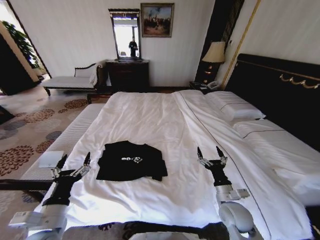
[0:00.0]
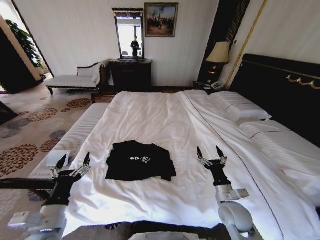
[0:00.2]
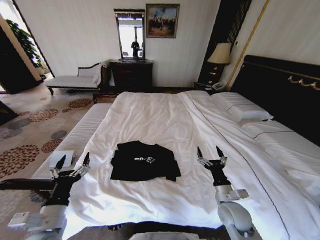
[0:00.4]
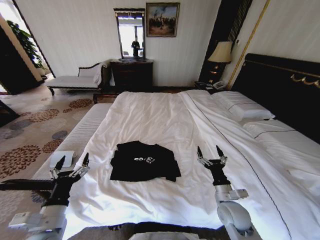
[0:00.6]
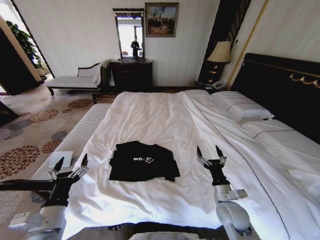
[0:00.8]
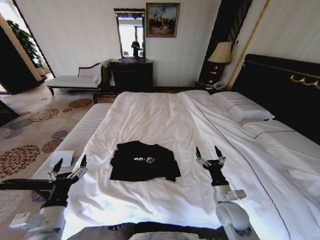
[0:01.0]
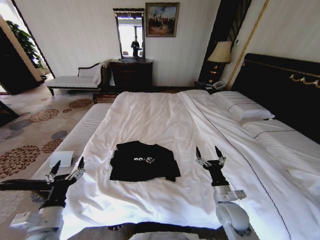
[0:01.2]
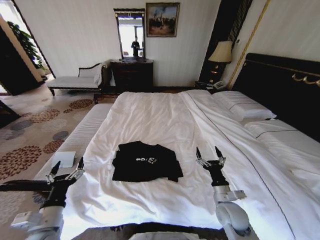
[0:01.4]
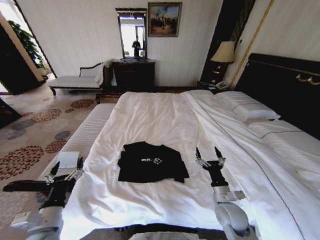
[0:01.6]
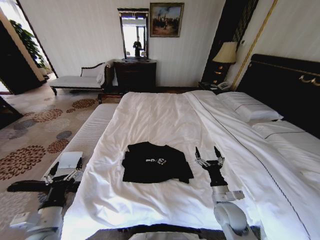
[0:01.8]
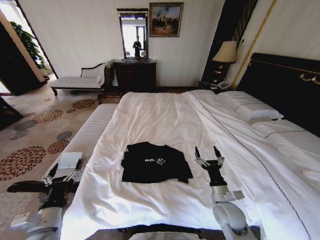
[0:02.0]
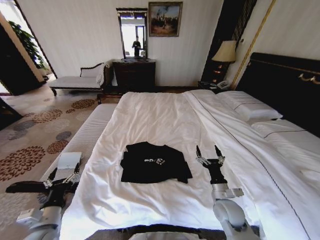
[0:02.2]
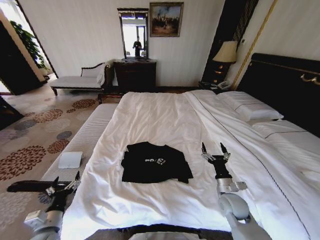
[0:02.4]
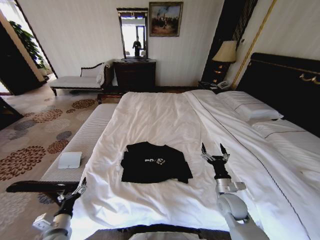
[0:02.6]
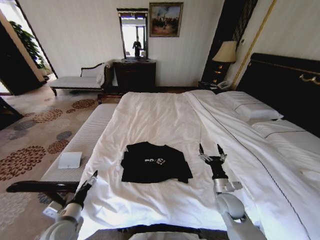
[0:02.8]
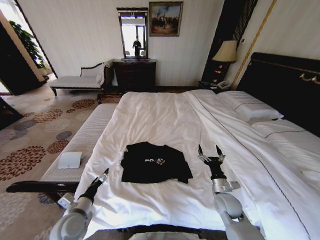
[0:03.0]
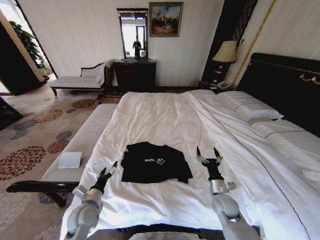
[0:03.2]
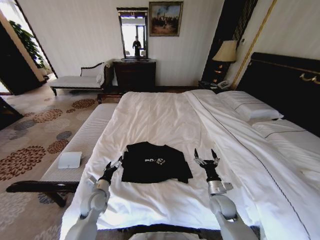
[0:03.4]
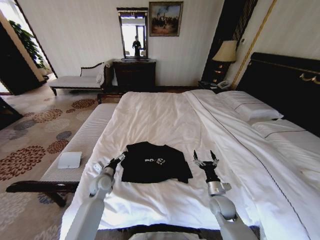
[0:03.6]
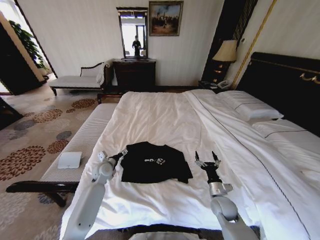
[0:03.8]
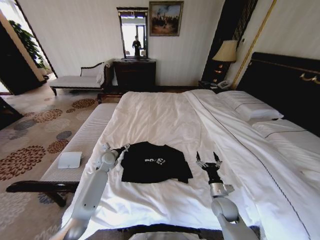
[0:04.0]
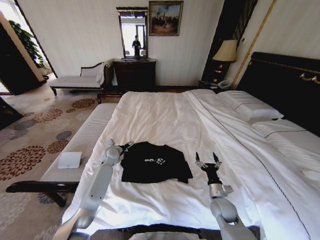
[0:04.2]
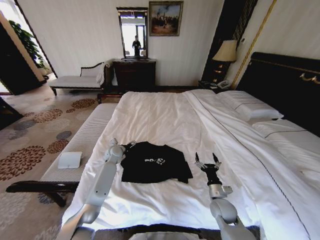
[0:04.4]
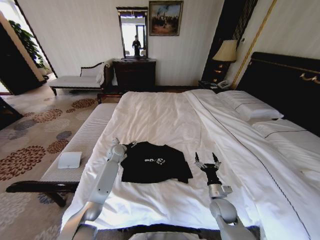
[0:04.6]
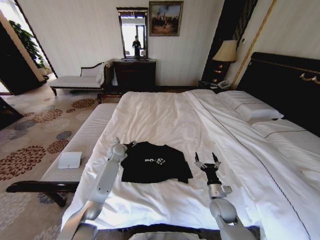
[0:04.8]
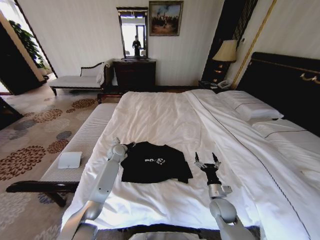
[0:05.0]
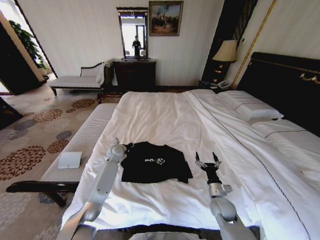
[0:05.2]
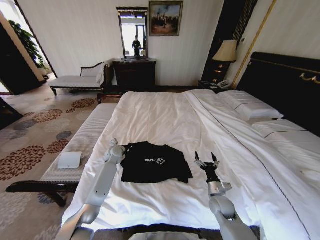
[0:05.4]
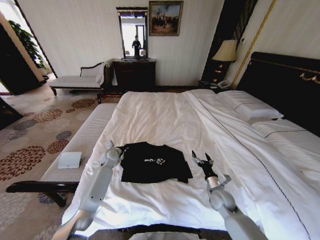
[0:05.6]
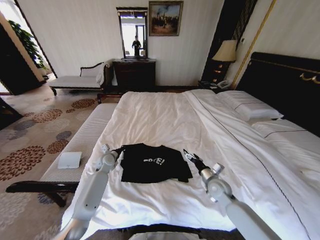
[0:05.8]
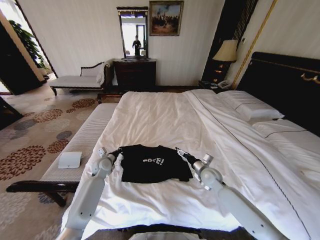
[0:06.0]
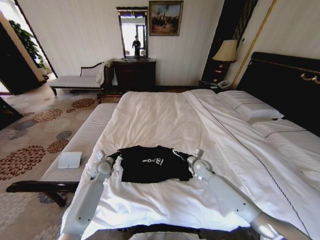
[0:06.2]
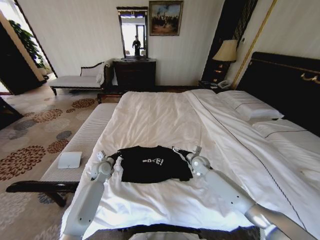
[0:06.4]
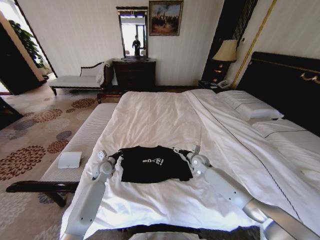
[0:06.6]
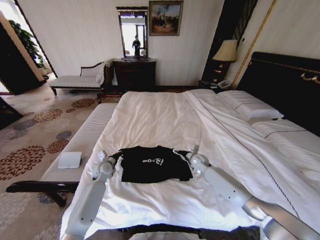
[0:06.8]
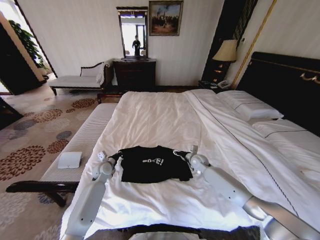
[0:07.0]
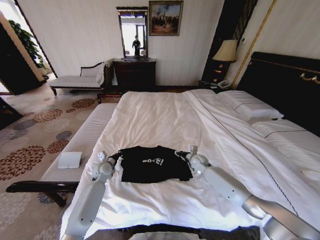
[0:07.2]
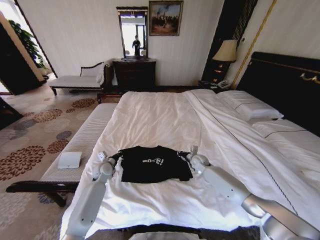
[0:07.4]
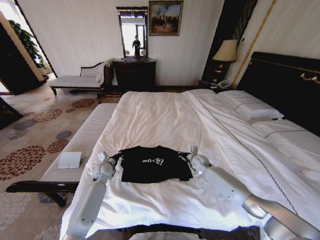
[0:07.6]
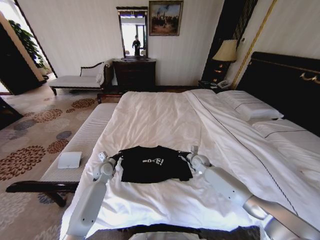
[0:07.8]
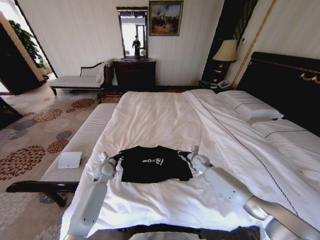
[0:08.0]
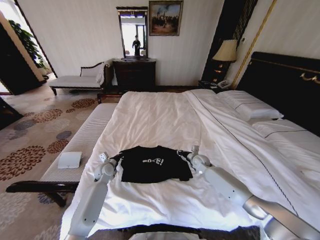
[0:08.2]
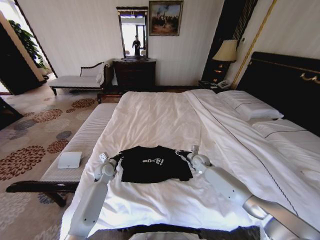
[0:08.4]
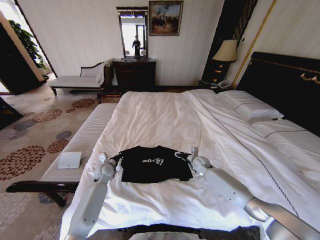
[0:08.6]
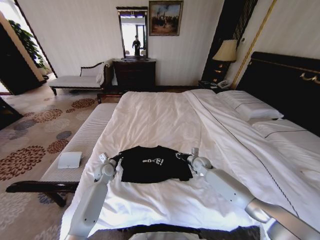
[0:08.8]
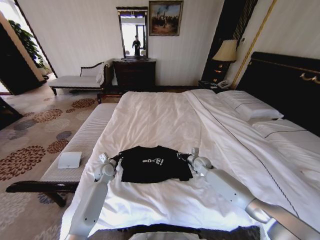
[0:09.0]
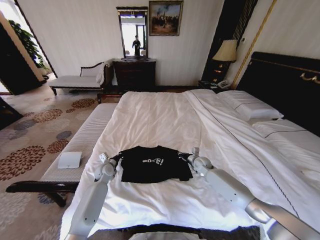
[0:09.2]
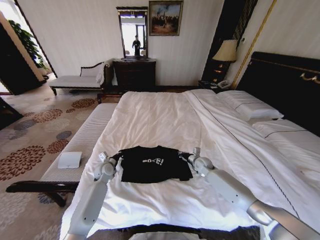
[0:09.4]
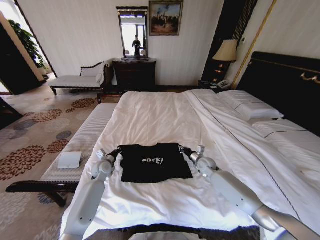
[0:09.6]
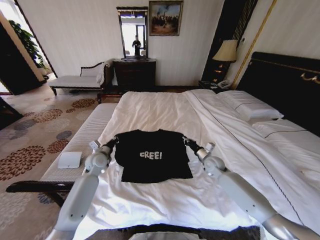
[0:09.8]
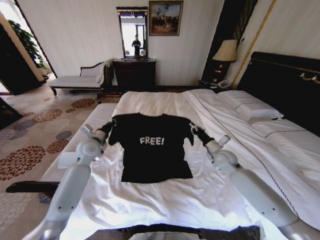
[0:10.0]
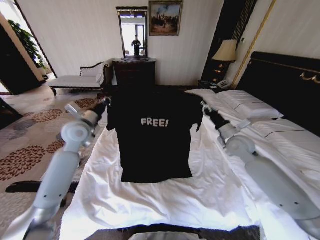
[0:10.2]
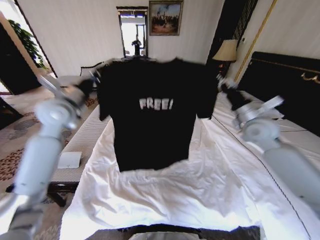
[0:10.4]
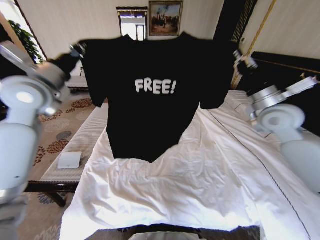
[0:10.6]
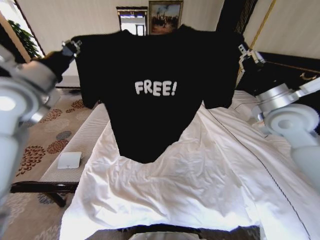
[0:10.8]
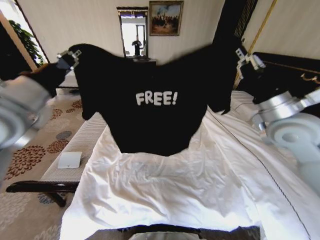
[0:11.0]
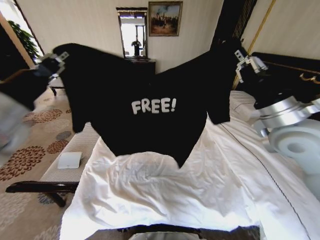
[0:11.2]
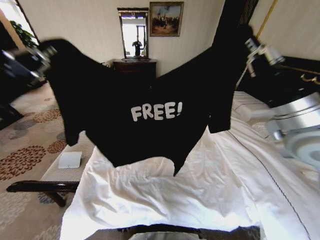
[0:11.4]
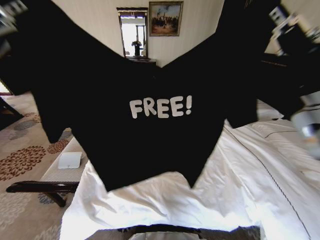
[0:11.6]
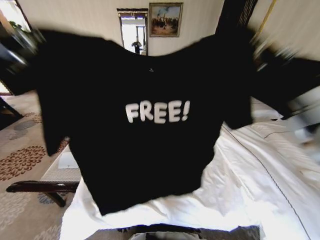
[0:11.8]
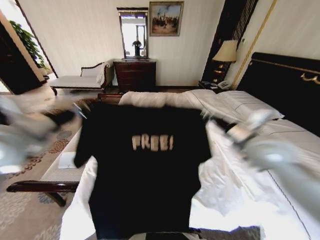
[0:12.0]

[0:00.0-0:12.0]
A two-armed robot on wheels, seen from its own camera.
Task of the whole recording: Fold the clothes on the bed.
0:01.6 to 0:03.0: The left gripper moves downward and forward, roughly 10 cm. The right gripper changes place by roughly 5 cm.
0:03.0 to 0:04.4: The left gripper moves forward, about 30 cm.
0:04.4 to 0:06.0: The right gripper shifts about 15 cm forward and upward, while the left gripper travels backward and to the left by approximately 10 cm, and closes its fingers.
0:06.0 to 0:07.6: The right gripper goes some 10 cm forward, and closes its fingers.
0:07.6 to 0:09.0: The right gripper opens, then closes again.
0:09.0 to 0:10.4: Both grippers move upward, about 30 cm.
0:10.4 to 0:12.0: The left gripper goes about 15 cm backward. Meanwhile the right gripper shifts approximately 10 cm backward and to the left.

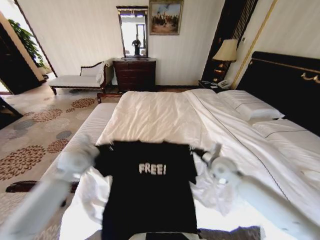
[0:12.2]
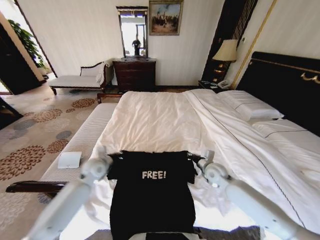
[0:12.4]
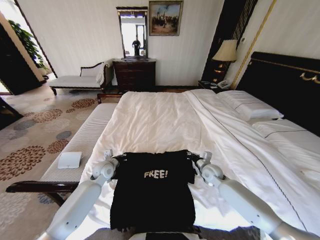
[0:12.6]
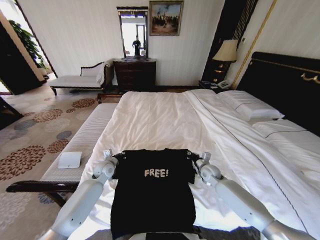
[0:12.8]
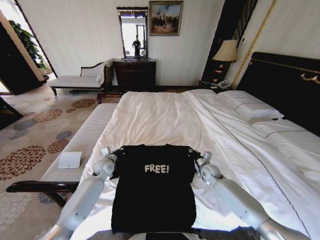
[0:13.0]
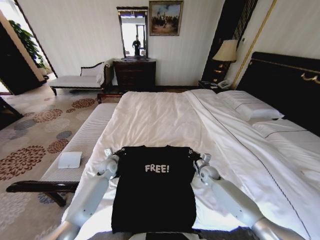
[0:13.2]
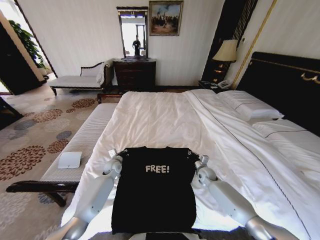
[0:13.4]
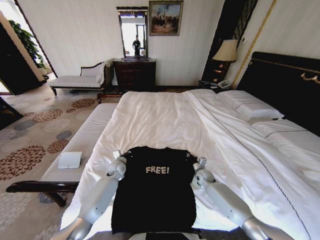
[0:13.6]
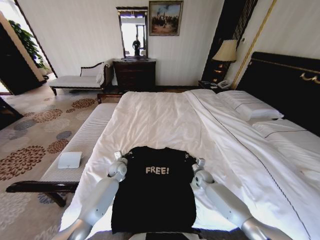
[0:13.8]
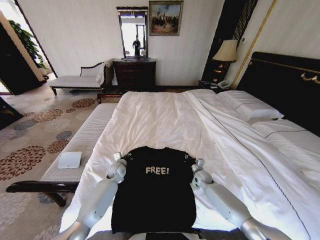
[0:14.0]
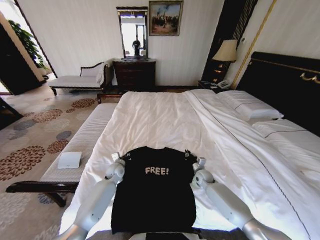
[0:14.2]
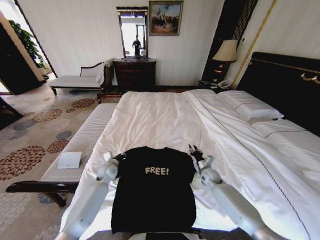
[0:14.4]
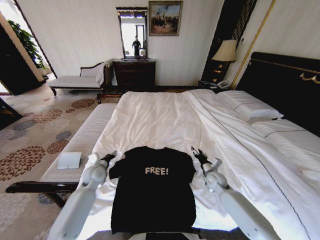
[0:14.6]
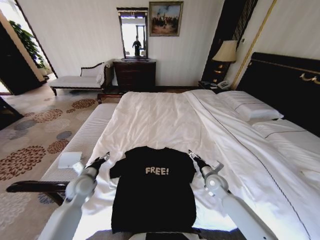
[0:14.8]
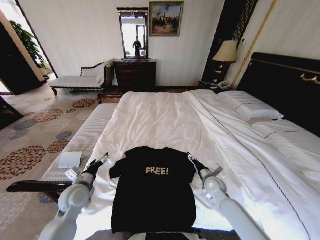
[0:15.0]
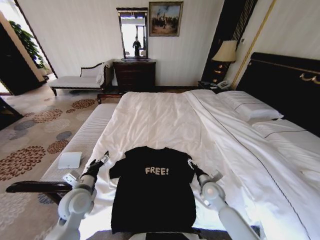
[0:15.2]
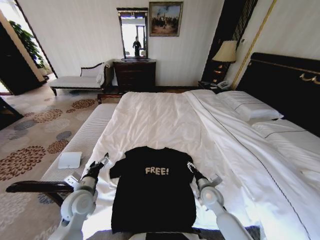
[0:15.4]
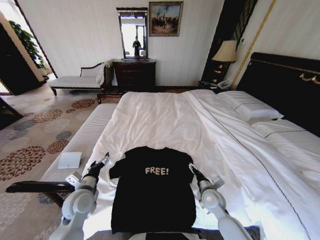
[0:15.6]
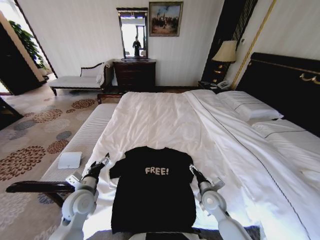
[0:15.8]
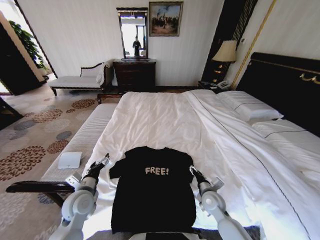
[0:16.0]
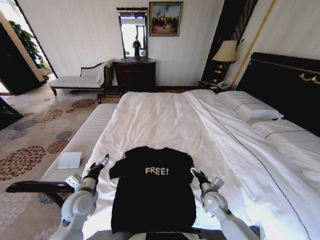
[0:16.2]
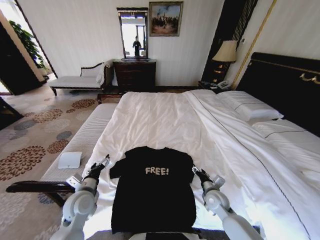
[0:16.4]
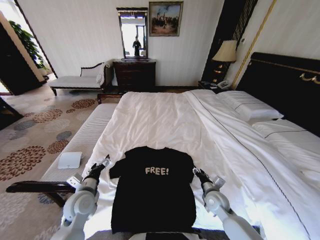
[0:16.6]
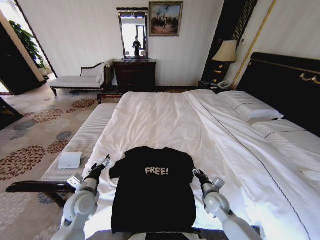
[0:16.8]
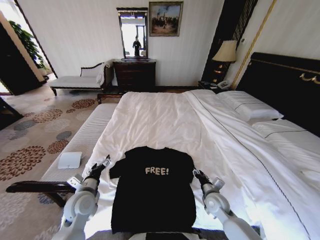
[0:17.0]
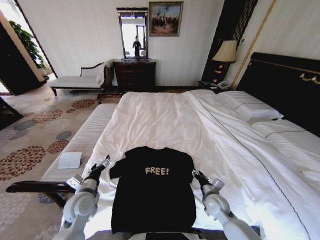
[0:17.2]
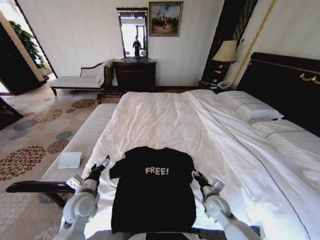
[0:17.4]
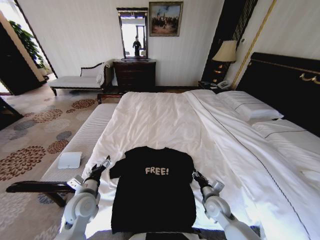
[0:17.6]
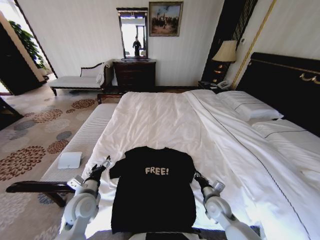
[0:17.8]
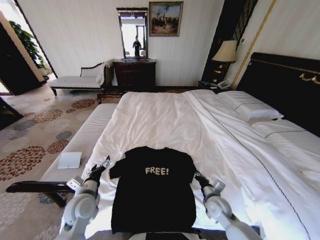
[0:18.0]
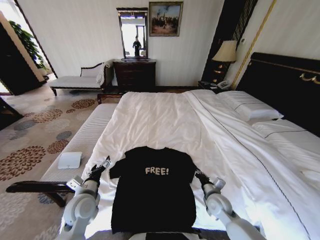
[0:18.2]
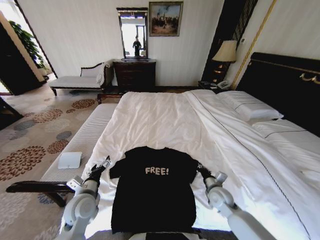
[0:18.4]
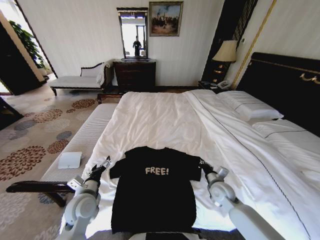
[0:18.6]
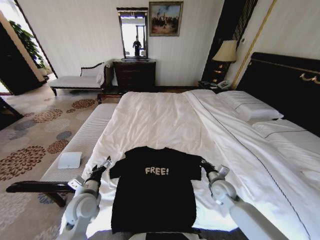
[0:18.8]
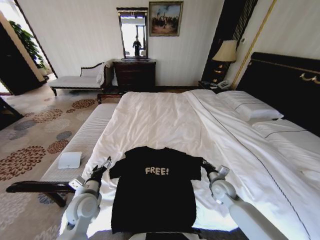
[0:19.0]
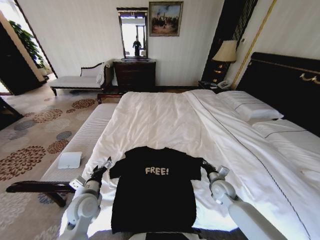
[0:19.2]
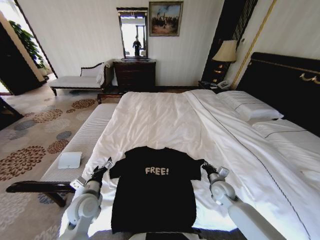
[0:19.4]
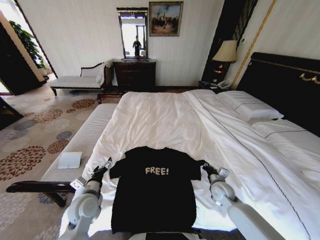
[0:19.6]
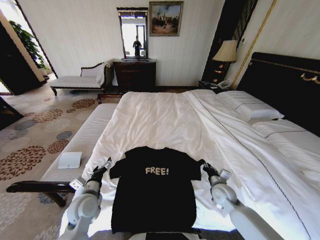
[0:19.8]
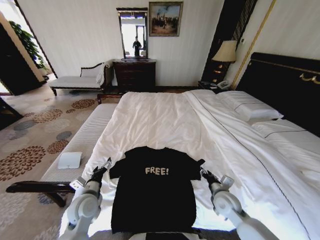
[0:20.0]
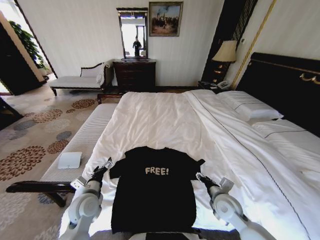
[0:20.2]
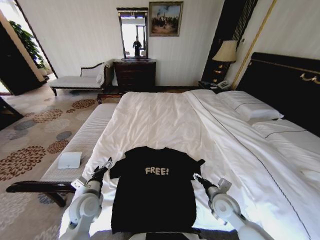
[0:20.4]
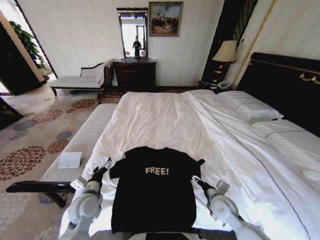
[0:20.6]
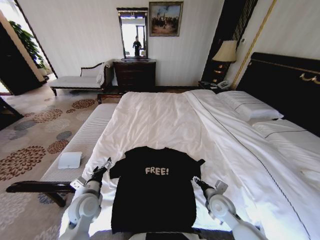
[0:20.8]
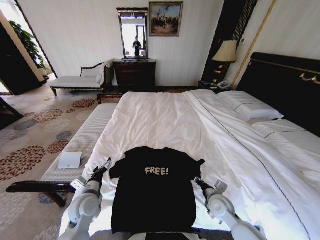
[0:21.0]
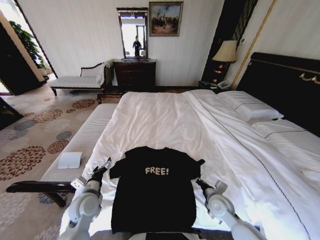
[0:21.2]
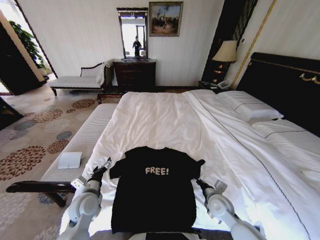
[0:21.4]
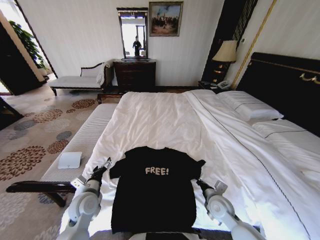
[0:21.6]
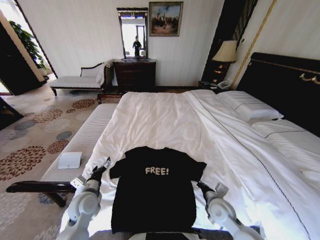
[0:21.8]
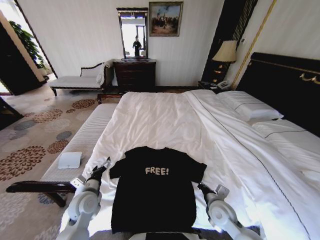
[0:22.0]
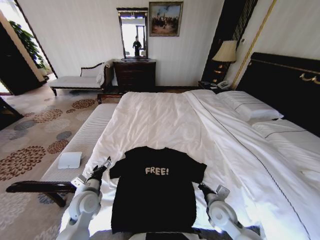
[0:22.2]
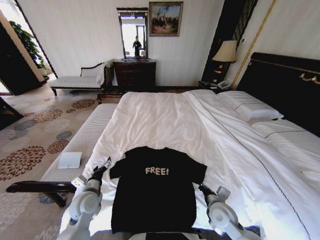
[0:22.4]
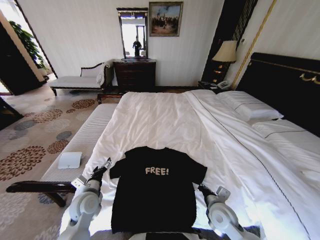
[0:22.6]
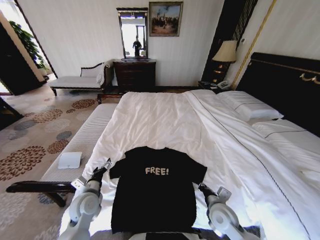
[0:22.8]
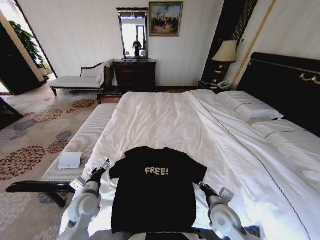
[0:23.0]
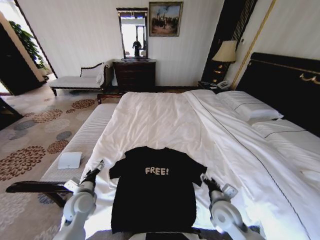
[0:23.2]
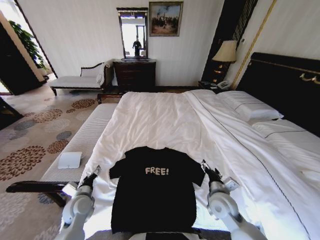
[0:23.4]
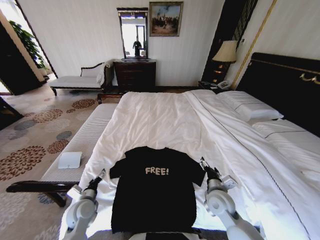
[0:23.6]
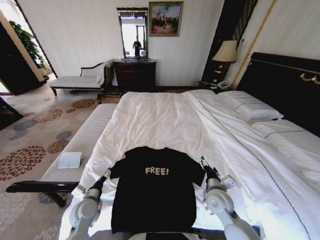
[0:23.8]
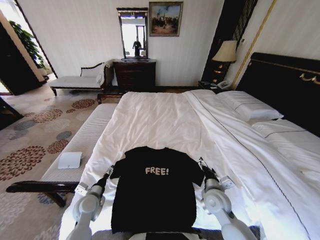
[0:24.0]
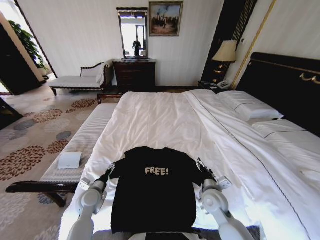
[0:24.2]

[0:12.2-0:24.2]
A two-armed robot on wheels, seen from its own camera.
Task of the whole recording: Fold the clothes on the bed.
0:12.2 to 0:13.8: The left gripper moves downward and to the right, approximately 25 cm. The right gripper shifts about 20 cm downward.
0:13.8 to 0:15.2: The left gripper heads backward and upward, covering some 25 cm, and opens up, while the right gripper moves backward and upward, some 15 cm, and opens up.
0:15.2 to 0:16.6: The right gripper closes up.
0:16.6 to 0:18.2: The right gripper closes up.
0:18.2 to 0:19.8: The right gripper ends up roughly 5 cm from where it was.
0:19.8 to 0:21.2: The right gripper shifts by approximately 5 cm, and opens and closes again.
0:21.2 to 0:22.6: The grippers make only small movements.
0:22.6 to 0:24.2: The left gripper travels downward by approximately 5 cm. Meanwhile the right gripper moves approximately 5 cm, and opens up.
